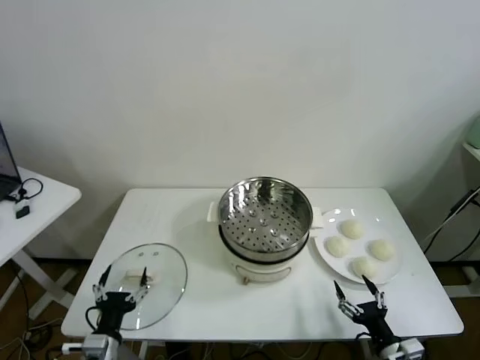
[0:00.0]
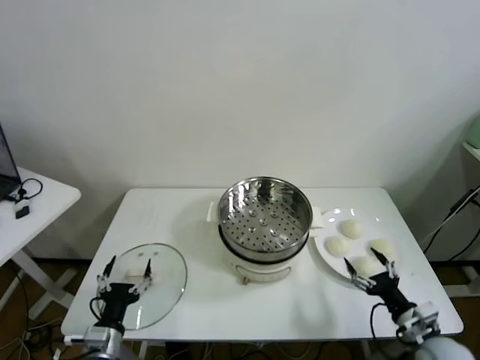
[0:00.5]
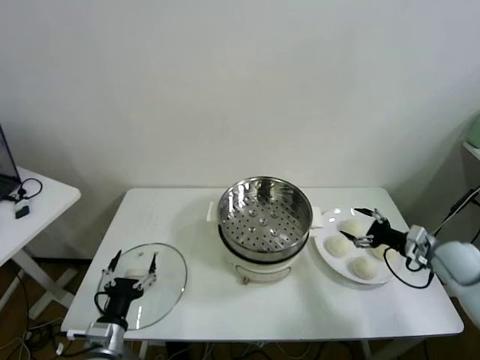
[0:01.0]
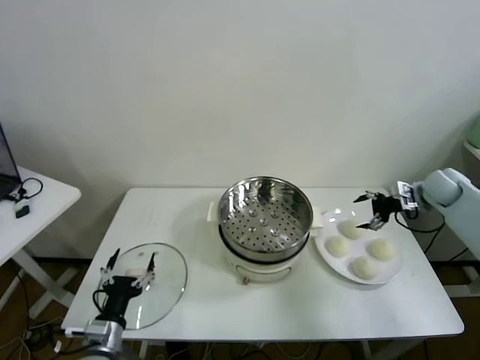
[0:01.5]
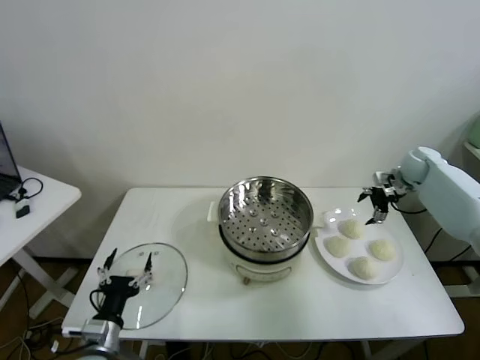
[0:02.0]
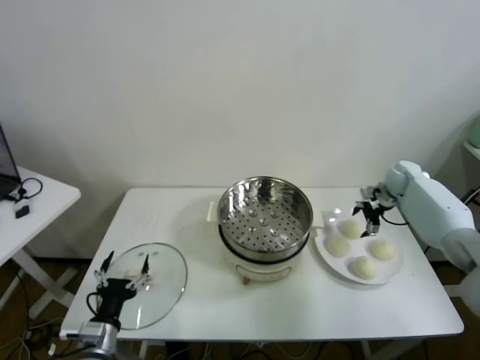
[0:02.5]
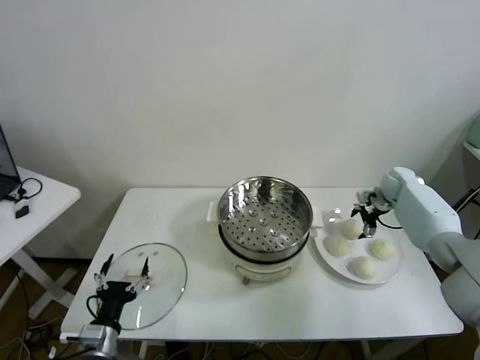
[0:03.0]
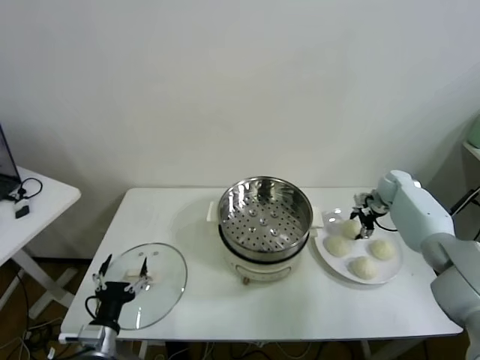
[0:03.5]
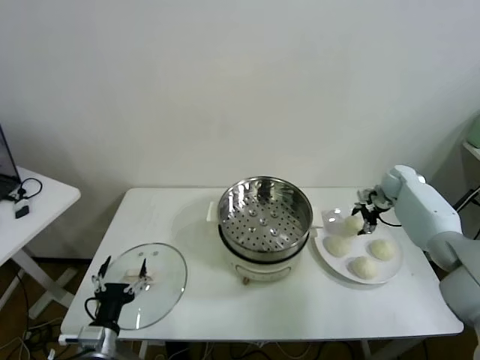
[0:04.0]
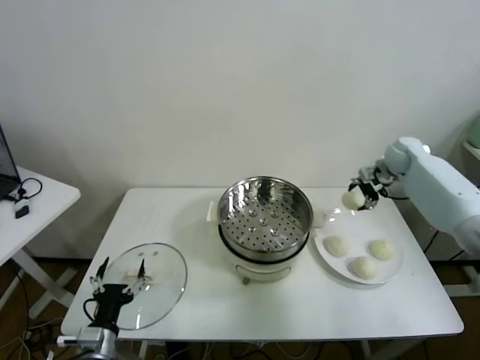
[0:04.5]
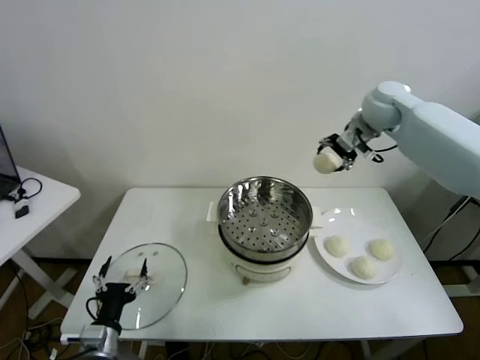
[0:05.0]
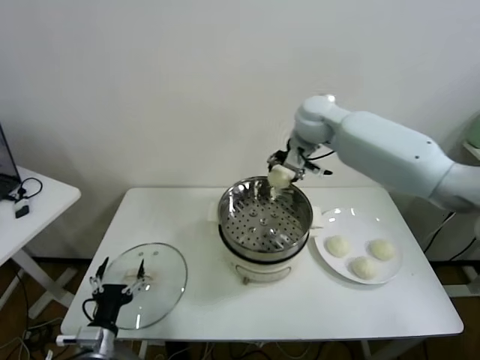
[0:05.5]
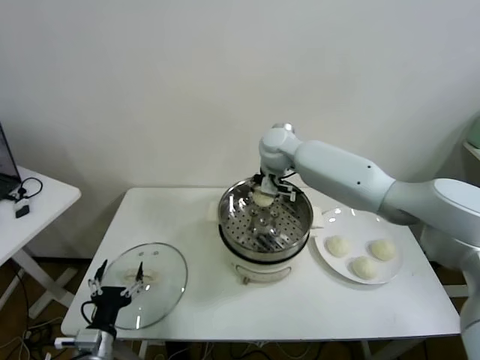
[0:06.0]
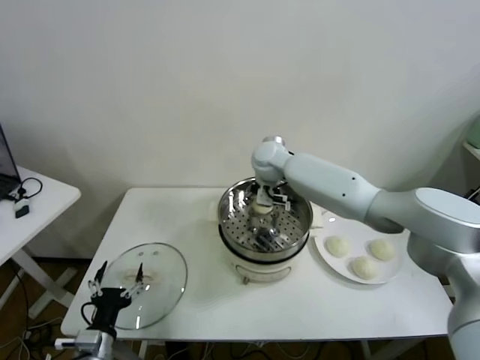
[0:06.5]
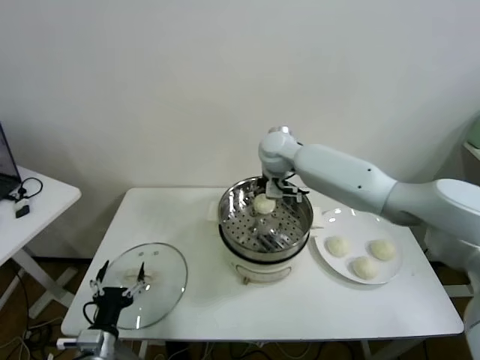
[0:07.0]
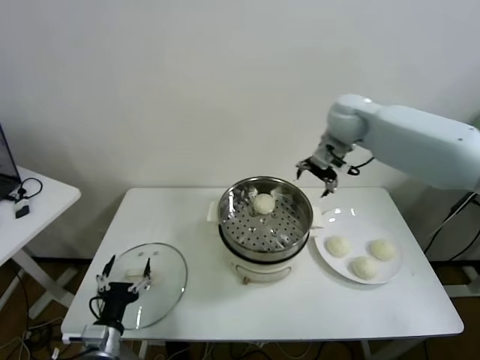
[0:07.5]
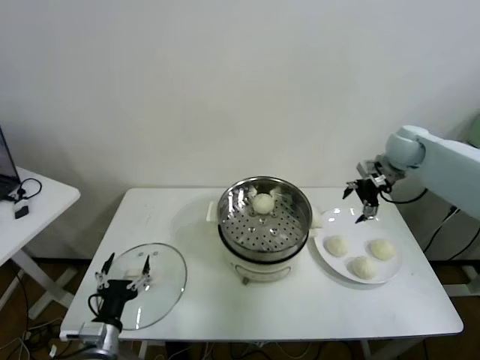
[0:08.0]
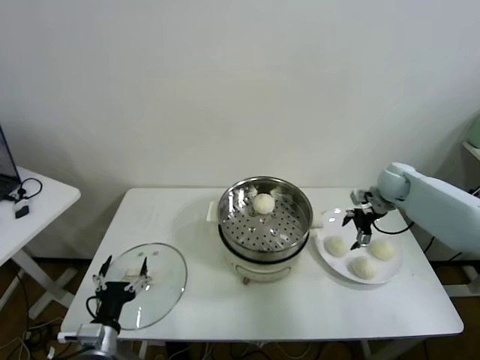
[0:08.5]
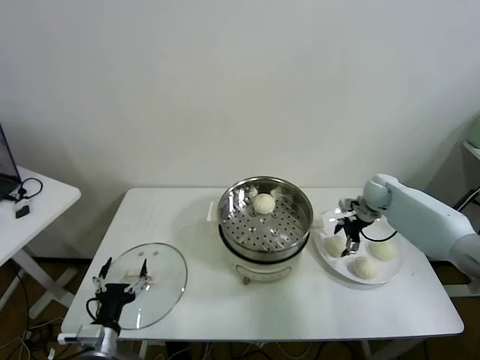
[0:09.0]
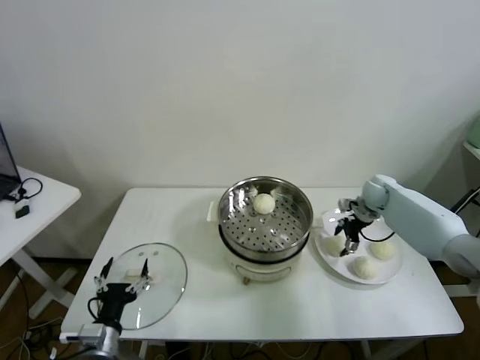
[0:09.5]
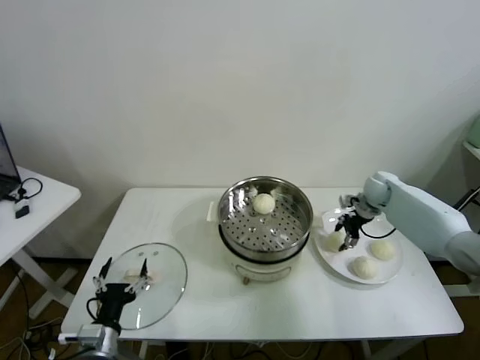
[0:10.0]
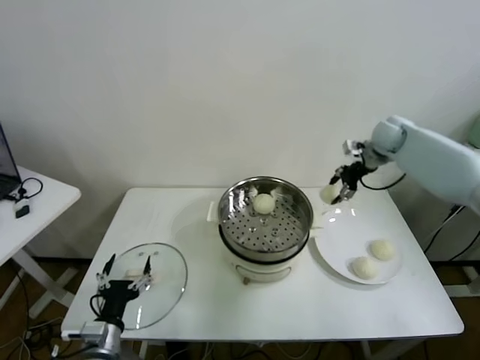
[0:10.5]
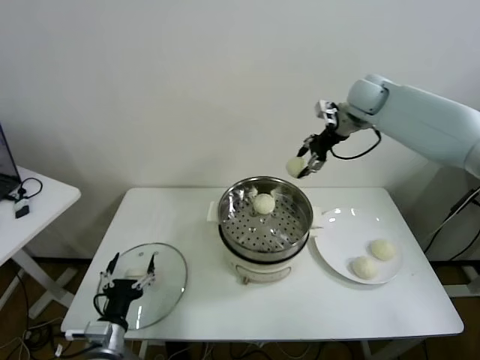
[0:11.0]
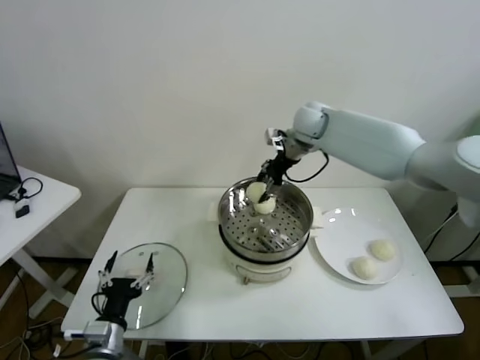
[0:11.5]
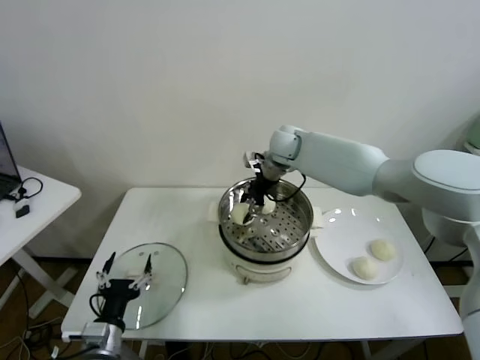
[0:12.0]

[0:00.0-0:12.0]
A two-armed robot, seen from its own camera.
Task of the whole recording: take steamed baozi put them in steamer.
Step, 0:00.0 to 0:03.5: Grasp the baozi in the plate with right gripper.
Step, 0:04.0 to 0:07.0: Place the baozi on the steamer with right gripper.
Step, 0:07.5 to 0:09.5: Grasp the baozi in the plate with right gripper.
0:02.0 to 0:04.0: The right gripper moves downward, approximately 5 cm, and closes its fingers.
0:04.0 to 0:06.0: The right gripper heads to the left, covering some 35 cm.
0:06.0 to 0:08.0: The right gripper heads to the right, covering some 30 cm, and opens.
0:08.0 to 0:10.0: The right gripper moves downward, some 15 cm, and closes up.
0:10.0 to 0:12.0: The right gripper is displaced to the left and upward by some 30 cm.

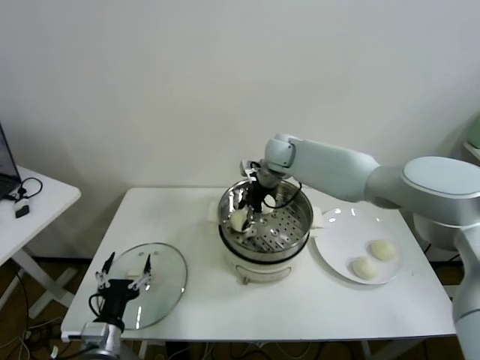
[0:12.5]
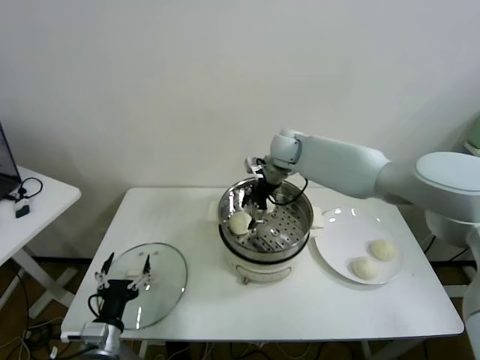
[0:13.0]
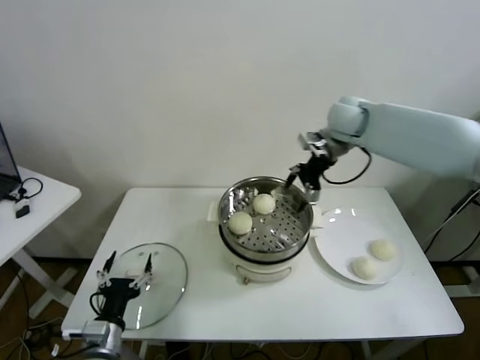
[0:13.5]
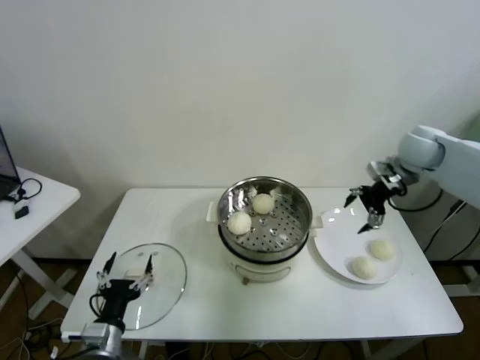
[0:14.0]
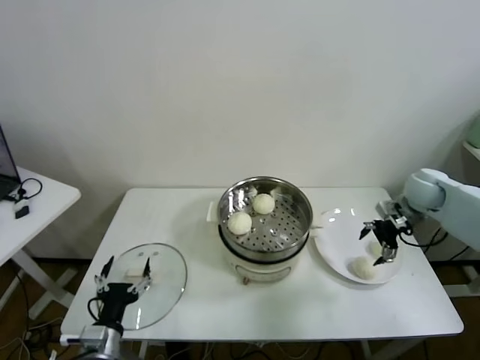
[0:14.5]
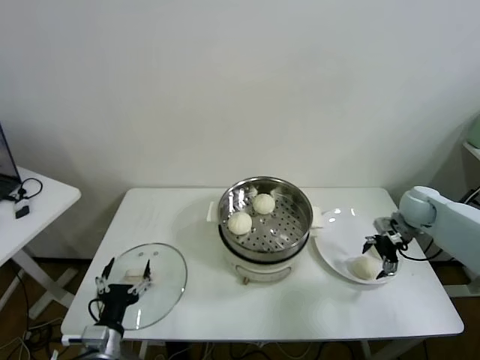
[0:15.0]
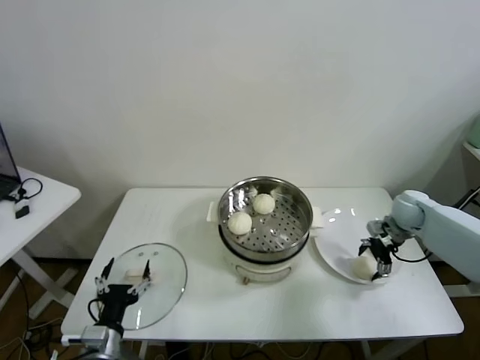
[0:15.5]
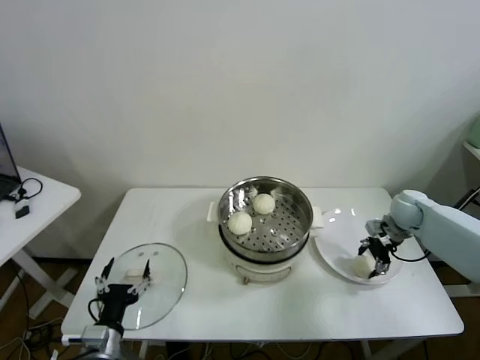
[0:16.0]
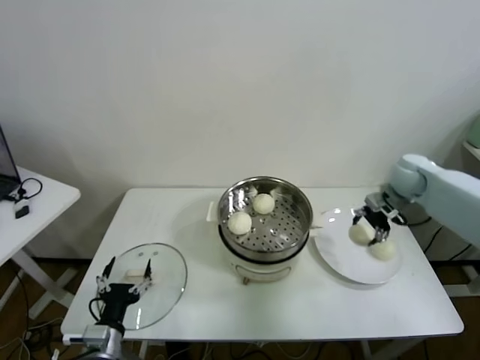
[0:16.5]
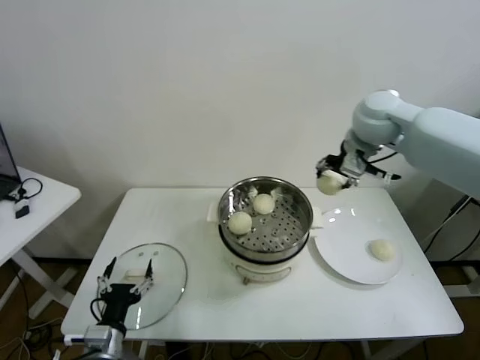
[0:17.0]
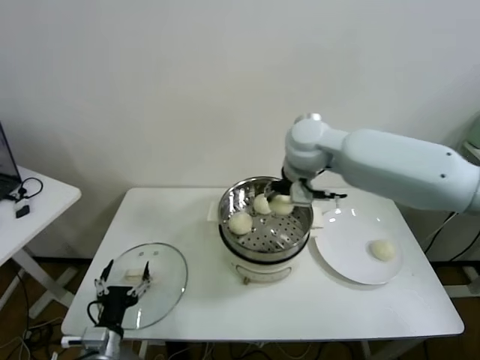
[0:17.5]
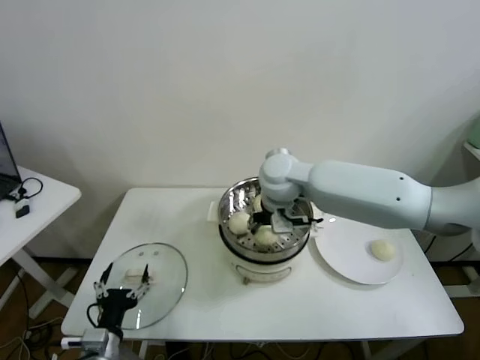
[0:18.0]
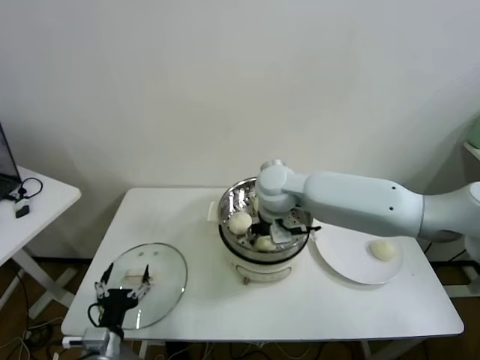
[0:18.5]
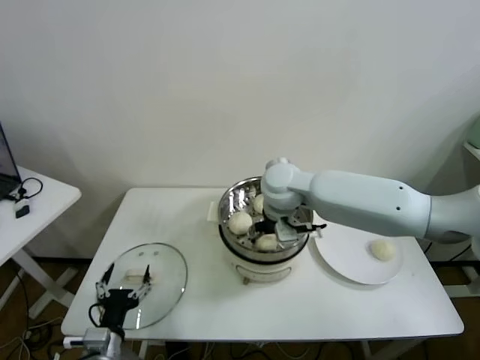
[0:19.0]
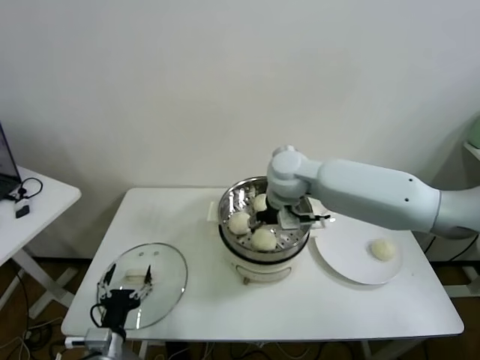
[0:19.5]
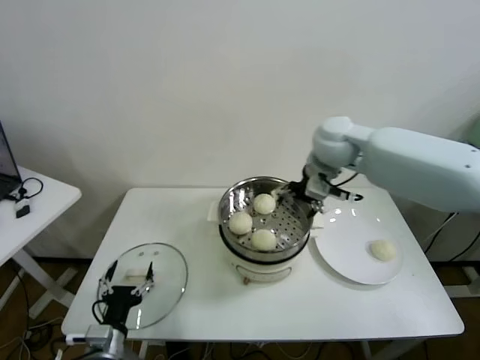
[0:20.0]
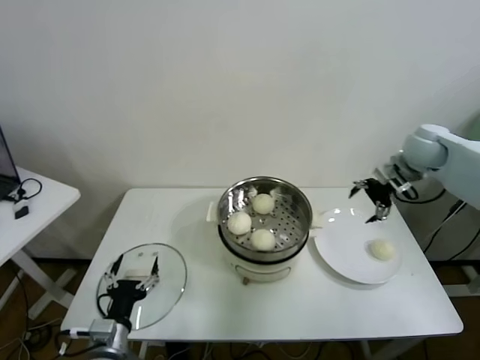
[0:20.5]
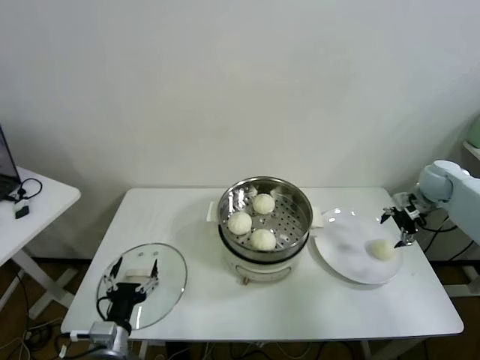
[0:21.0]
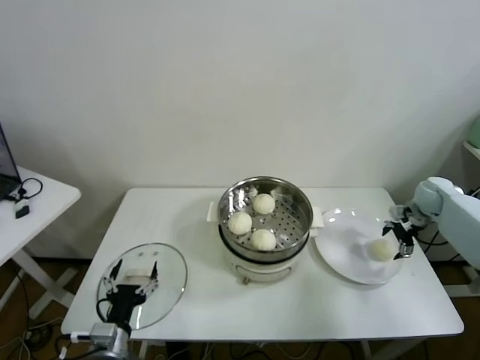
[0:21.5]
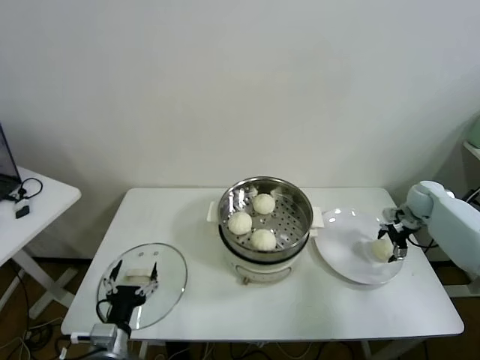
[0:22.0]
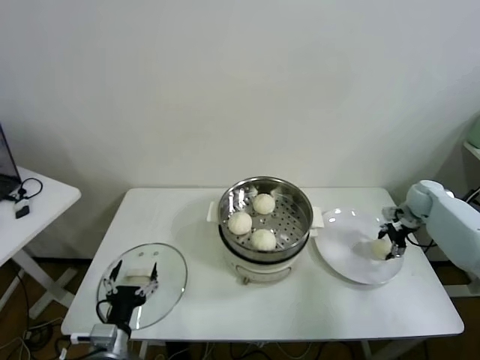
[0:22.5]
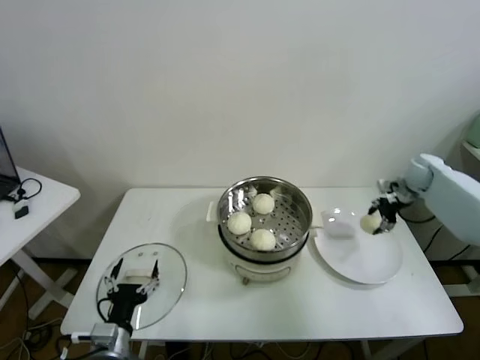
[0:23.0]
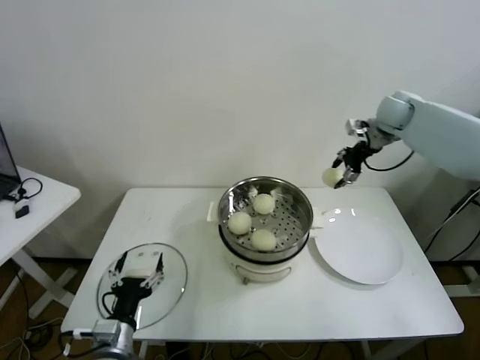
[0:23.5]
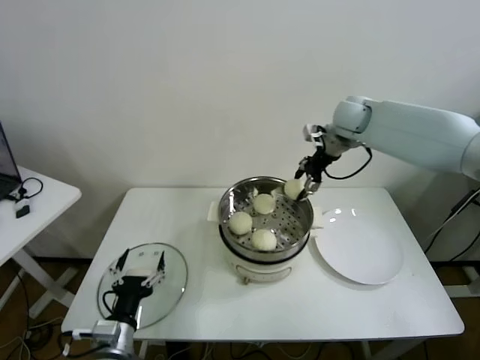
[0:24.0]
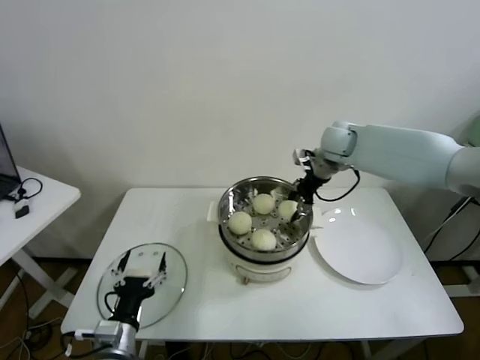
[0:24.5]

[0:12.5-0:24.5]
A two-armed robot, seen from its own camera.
Task of the whole recording: take steamed baozi put them in steamer.
Step, 0:13.0 to 0:15.5: Grasp the baozi in the plate with right gripper.
Step, 0:16.0 to 0:19.0: Place the baozi on the steamer with right gripper.
Step, 0:19.5 to 0:22.0: Grasp the baozi in the plate with right gripper.
0:12.5 to 0:14.5: The right gripper heads to the right, covering approximately 35 cm, and opens.
0:14.5 to 0:16.5: The right gripper travels downward and back again, about 10 cm each way, and closes its fingers.
0:16.5 to 0:18.5: The right gripper moves to the left, some 35 cm.
0:18.5 to 0:20.5: The right gripper goes about 30 cm to the right, and opens its fingers.
0:20.5 to 0:22.5: The right gripper heads downward and to the right, covering roughly 20 cm, and closes up.
0:22.5 to 0:24.5: The right gripper goes some 30 cm to the left and upward.

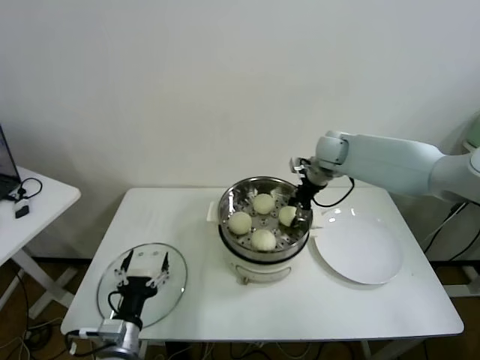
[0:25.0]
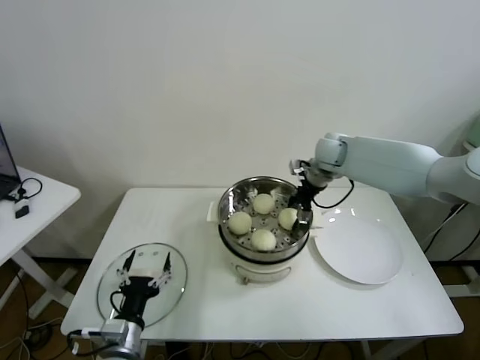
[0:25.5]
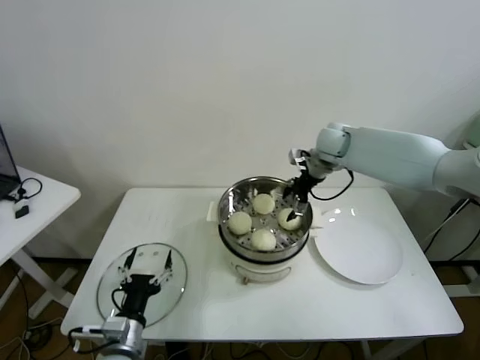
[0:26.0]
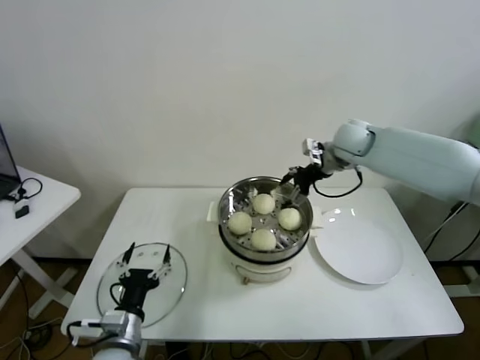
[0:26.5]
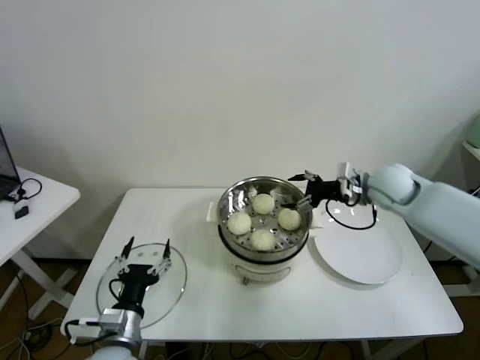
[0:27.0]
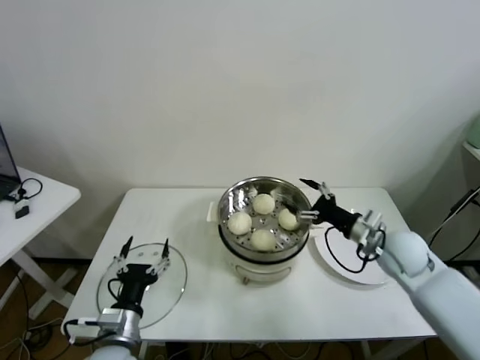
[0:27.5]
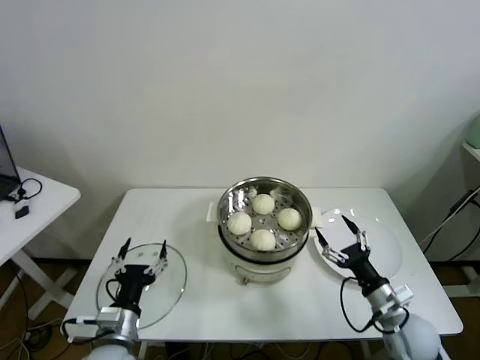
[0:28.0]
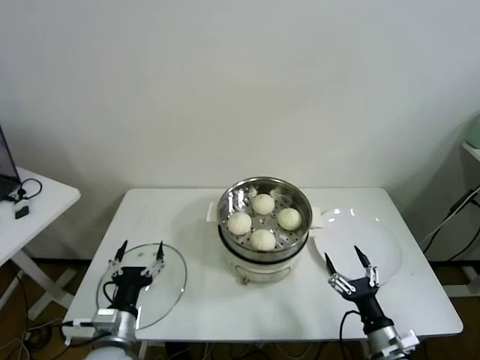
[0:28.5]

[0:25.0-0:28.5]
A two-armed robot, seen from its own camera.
Task of the whole recording: take steamed baozi put them in steamer.
0:25.0 to 0:27.0: The right gripper is displaced backward and to the right by about 15 cm, and opens its fingers.
0:27.0 to 0:28.5: The right gripper heads backward and downward, covering roughly 40 cm.
